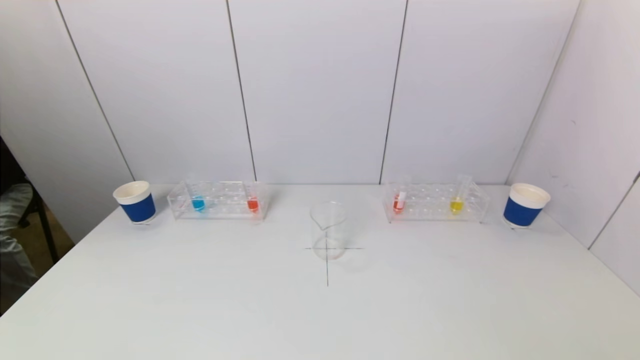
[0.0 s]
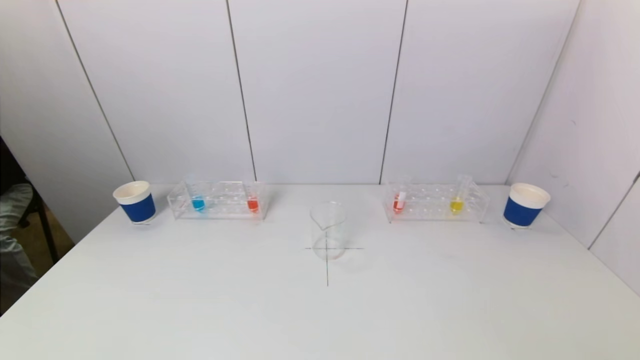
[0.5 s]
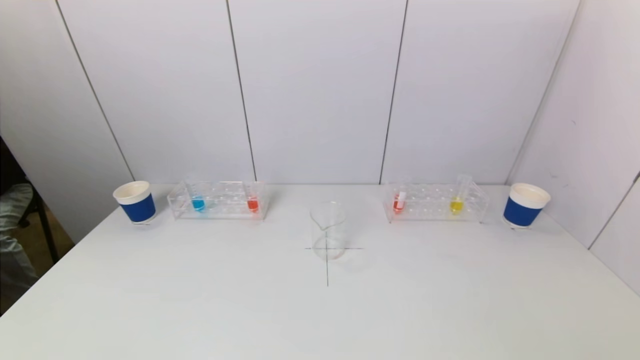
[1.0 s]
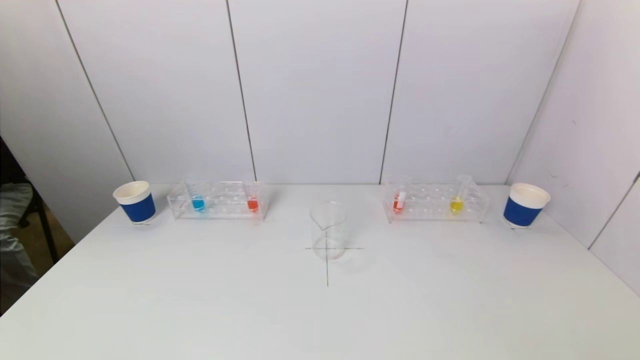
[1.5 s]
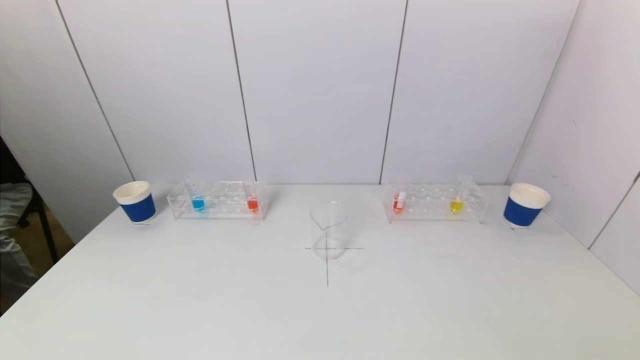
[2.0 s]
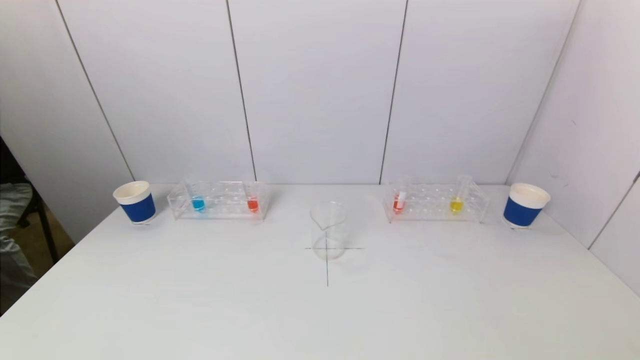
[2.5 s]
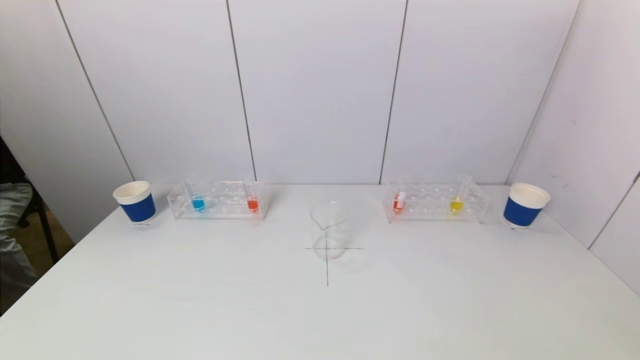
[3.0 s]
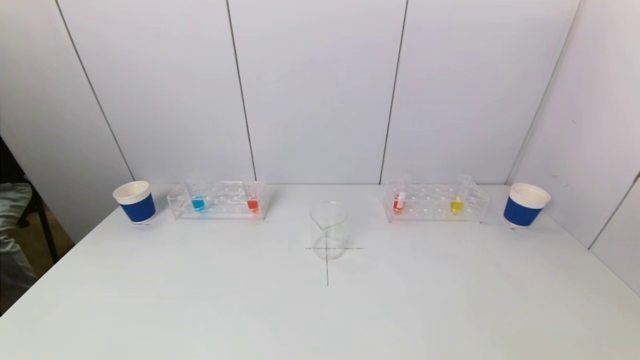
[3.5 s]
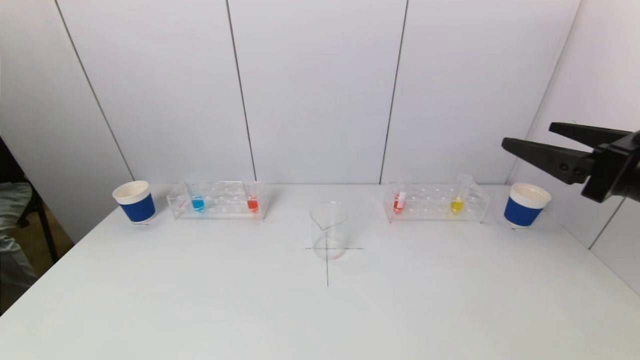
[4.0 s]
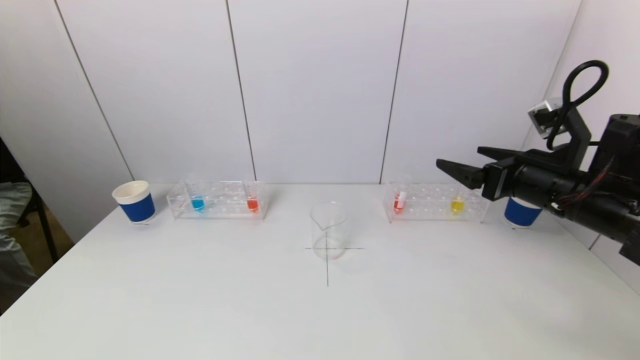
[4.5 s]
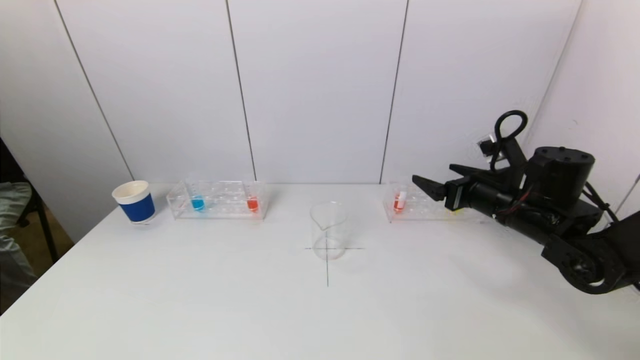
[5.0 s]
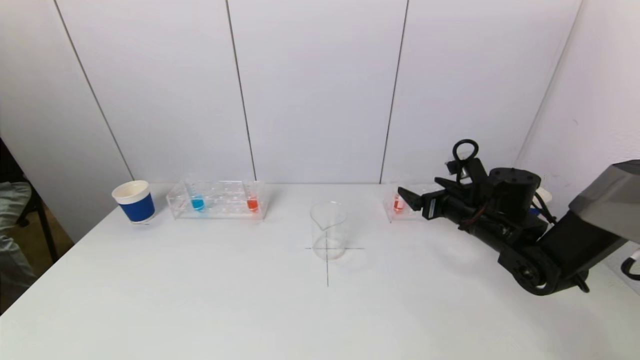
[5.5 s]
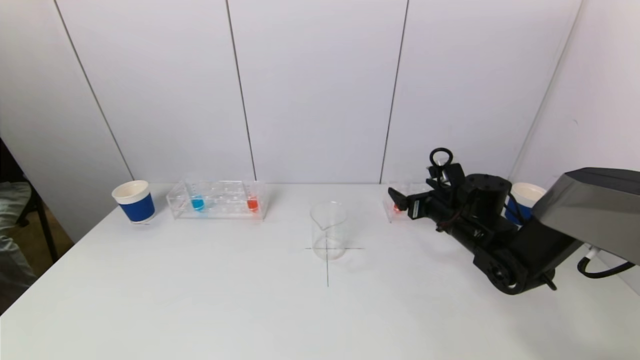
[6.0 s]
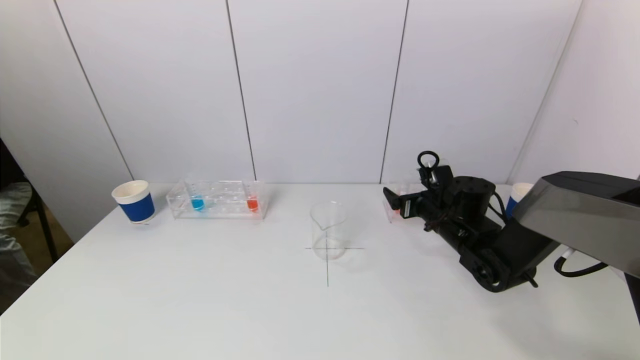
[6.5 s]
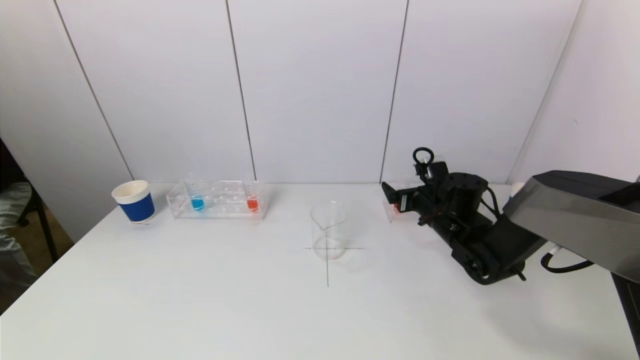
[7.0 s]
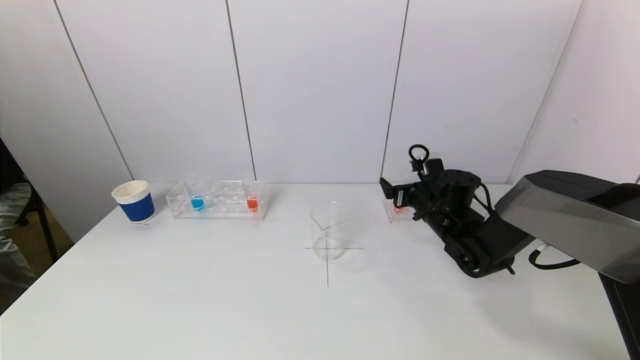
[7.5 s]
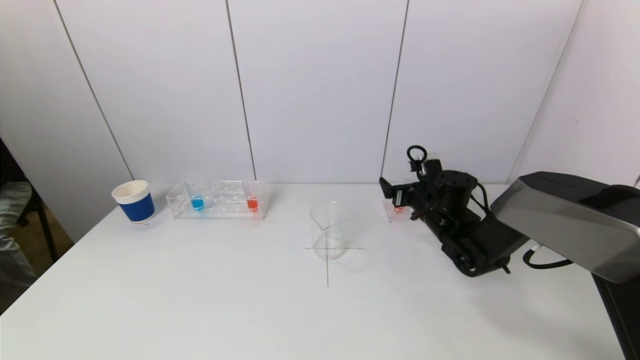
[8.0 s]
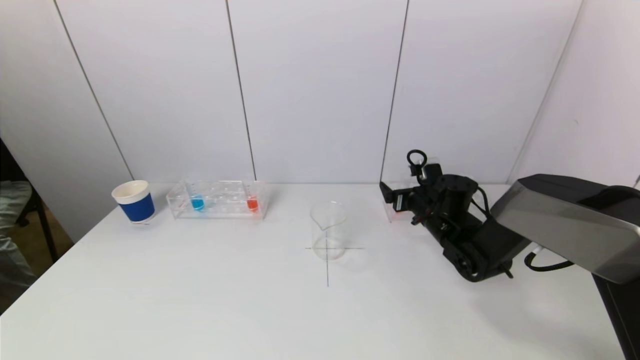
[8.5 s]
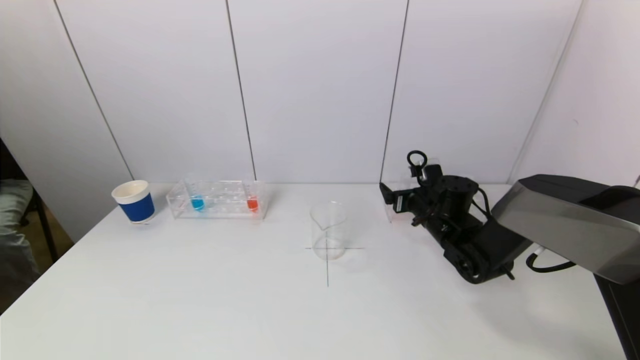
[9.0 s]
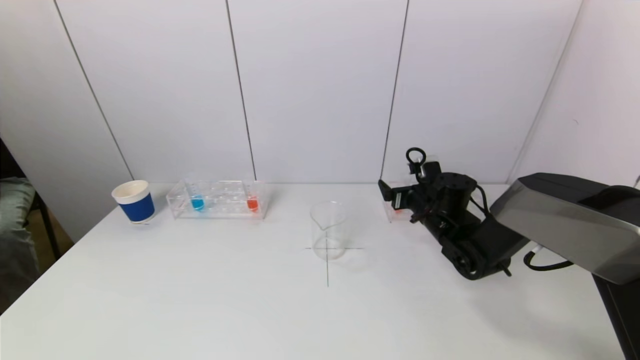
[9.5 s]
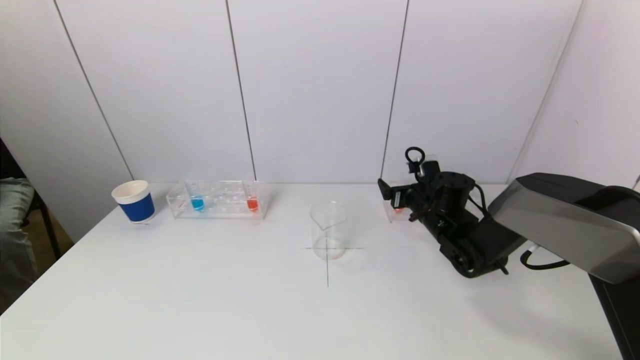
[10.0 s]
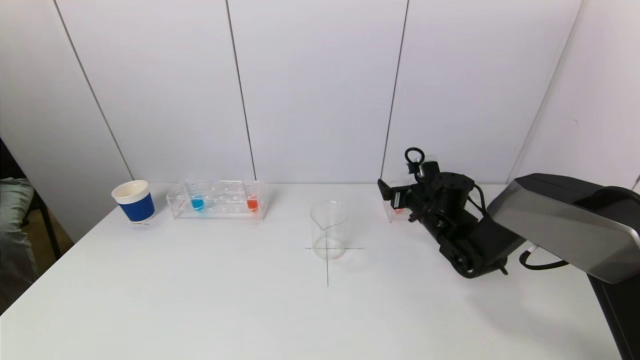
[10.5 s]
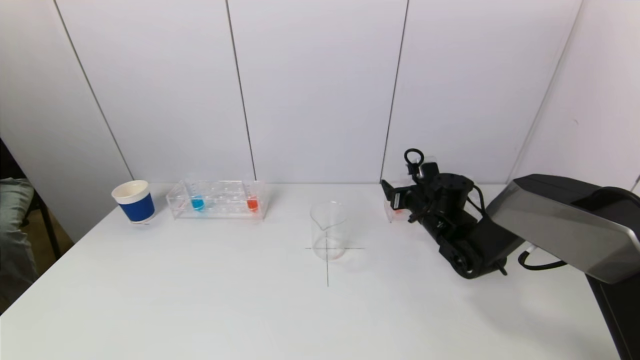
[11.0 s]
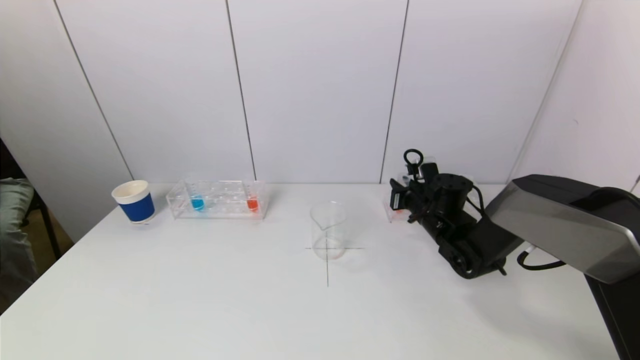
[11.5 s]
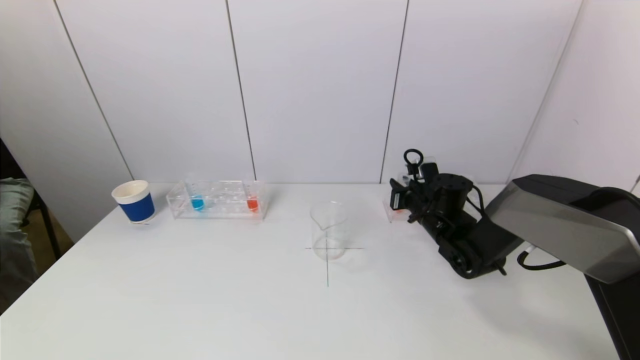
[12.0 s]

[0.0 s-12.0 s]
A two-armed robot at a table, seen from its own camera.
Task of the whole recording: pick up a test tube with pigment on left test tube rack and a test tube with pigment on right test tube rack by grippers and pour them into the beaker.
Step, 0.0 to 11.5 s: Grasp the red reagent with the right gripper.
0.0 to 2.0 s: The two grippers keep their place.
2.0 to 4.0 s: The right gripper heads forward and upward, covering some 30 cm.
4.0 to 6.0 s: The right gripper heads downward and forward, covering approximately 25 cm.
6.0 to 8.0 s: The right gripper changes place by roughly 5 cm.
8.0 to 10.0 s: Neither gripper changes place.
10.0 to 12.0 s: The right gripper closes.

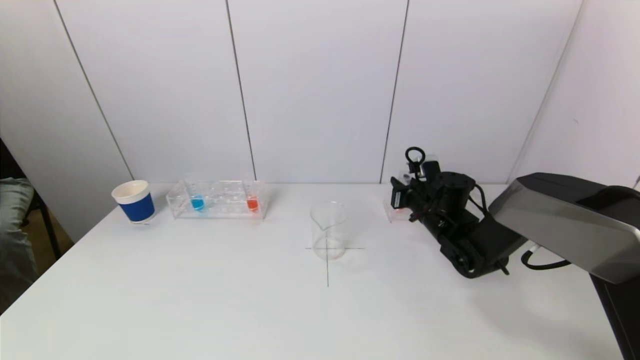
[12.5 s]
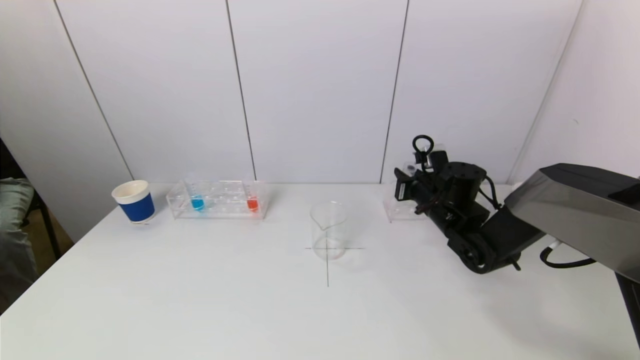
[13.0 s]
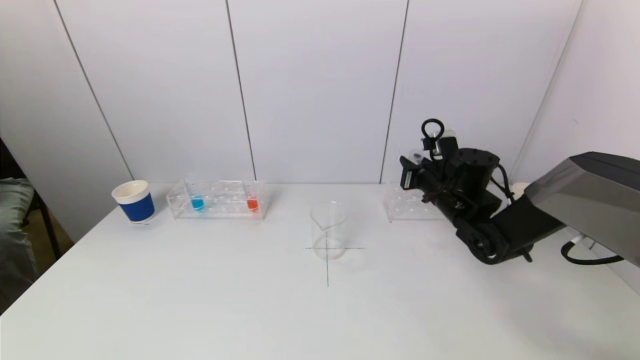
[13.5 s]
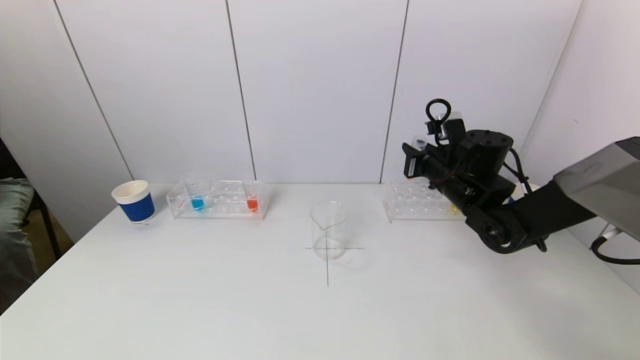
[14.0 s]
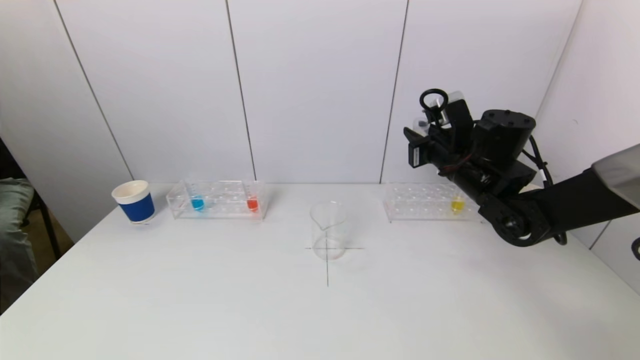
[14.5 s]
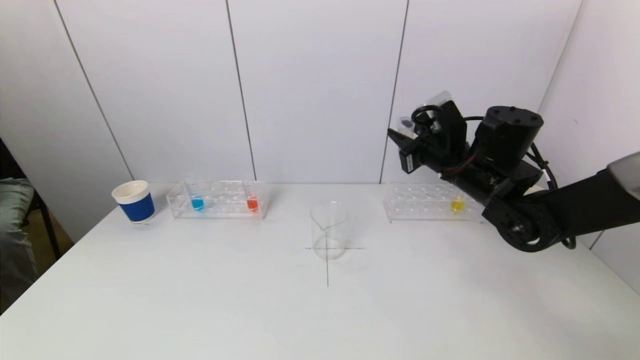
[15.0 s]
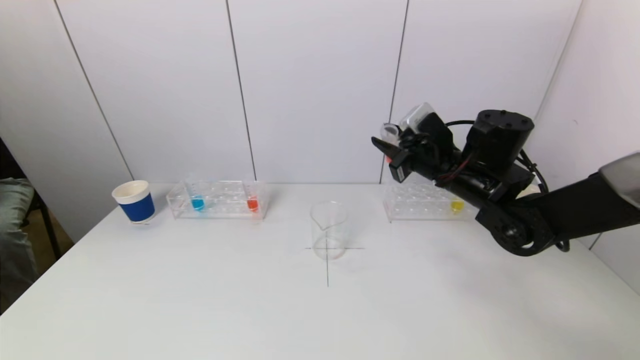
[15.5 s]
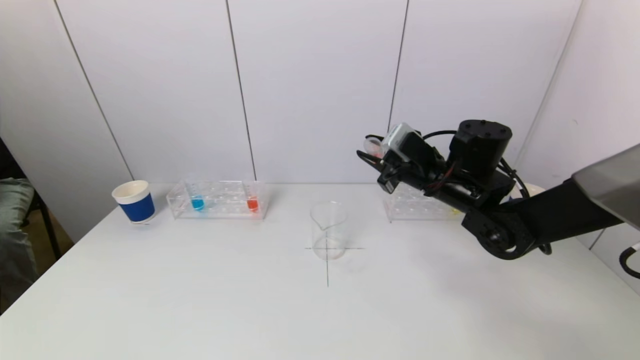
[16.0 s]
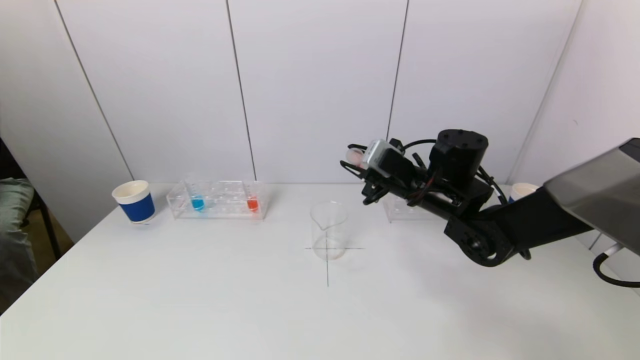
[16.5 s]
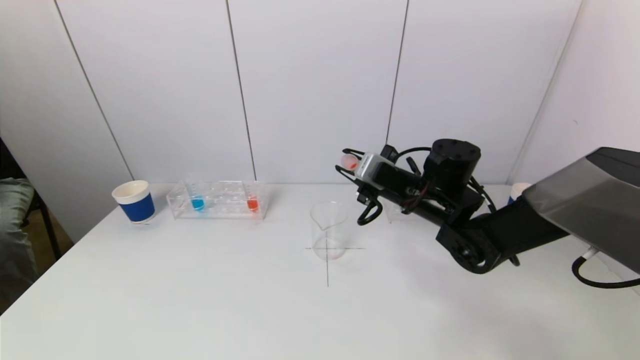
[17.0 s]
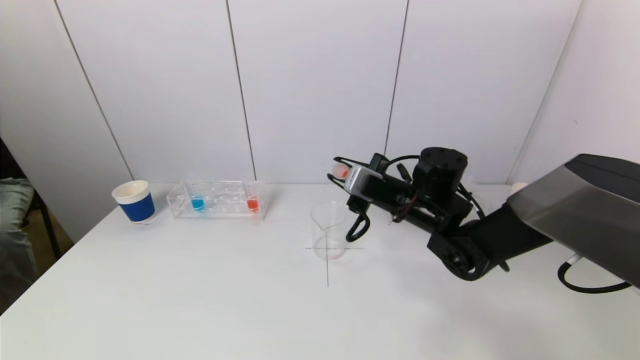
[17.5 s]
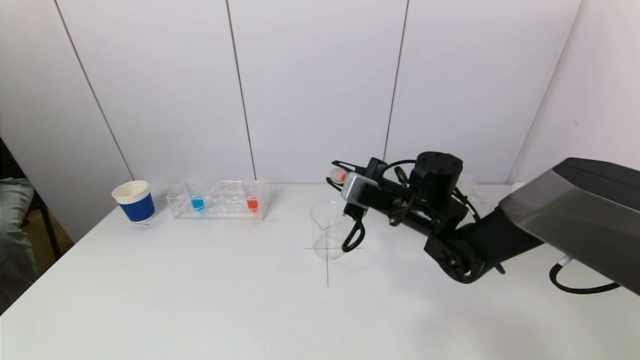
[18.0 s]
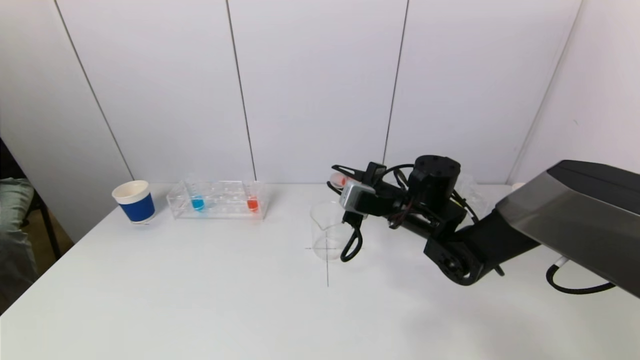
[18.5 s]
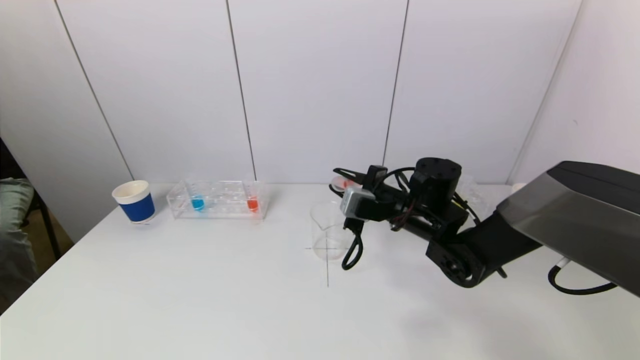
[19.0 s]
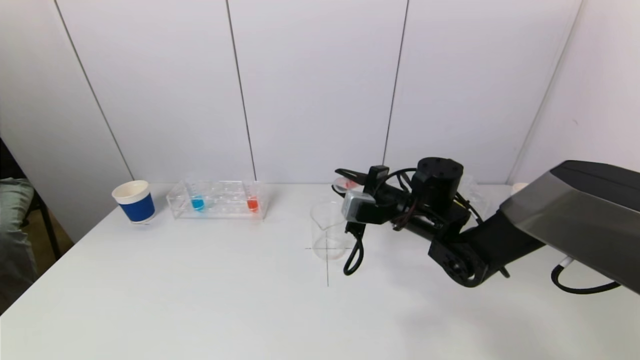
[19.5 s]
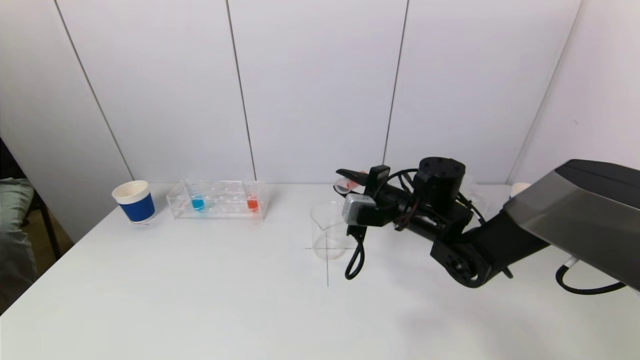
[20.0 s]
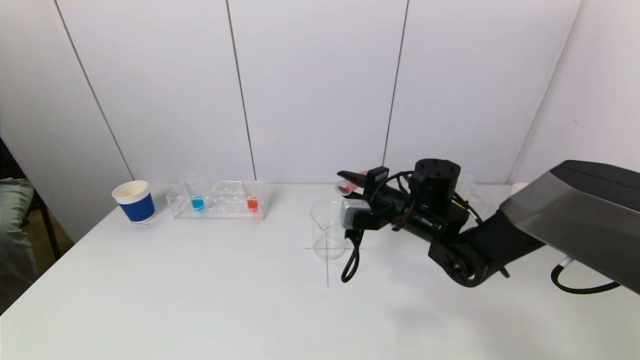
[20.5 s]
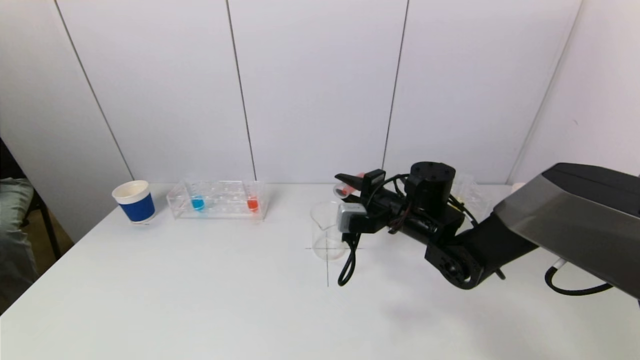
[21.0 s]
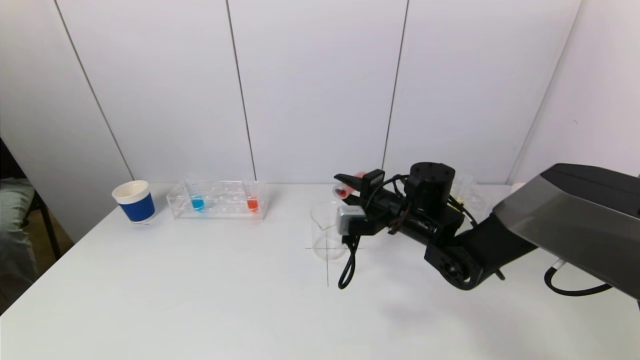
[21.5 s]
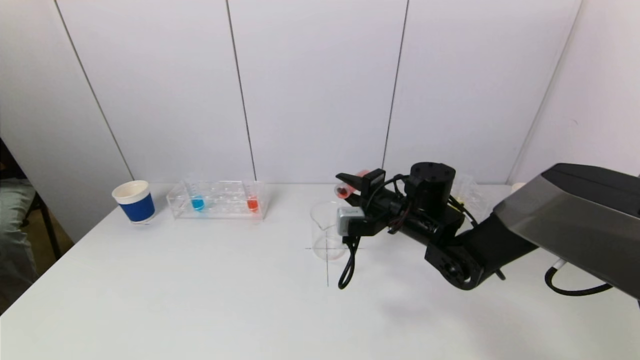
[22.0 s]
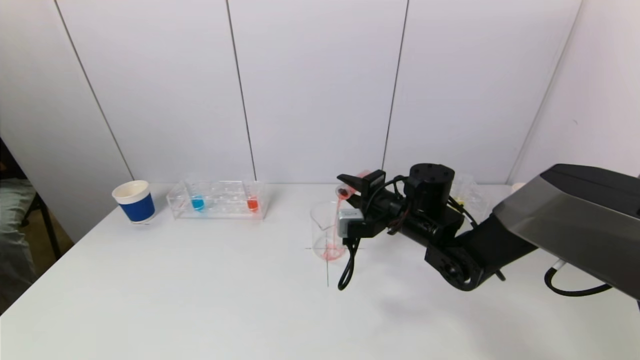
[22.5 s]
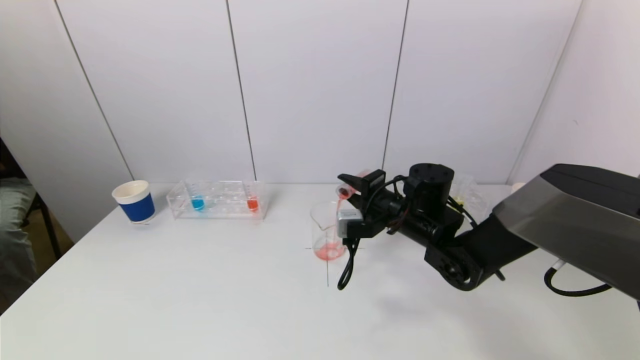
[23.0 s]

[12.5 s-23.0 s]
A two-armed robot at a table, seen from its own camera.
Task of the whole recording: pick up a test tube with pigment on left test tube rack and a test tube with pigment on right test tube rack by grippers and pour them into the beaker.
12.5 to 14.5 s: The right gripper heads upward, covering roughly 15 cm.
14.5 to 16.5 s: The right gripper is displaced to the left by some 5 cm.
16.5 to 19.0 s: The grippers stay close to where they were, moving slightly.
19.0 to 21.0 s: The grippers stay close to where they were, moving slightly.
21.0 to 23.0 s: The grippers stay close to where they were, moving slightly.
